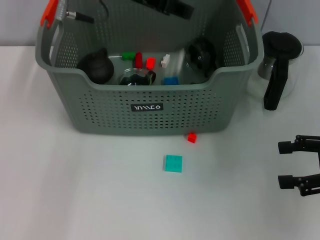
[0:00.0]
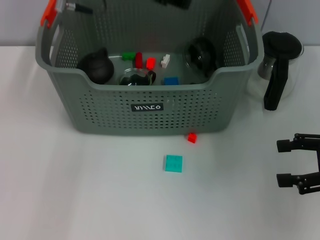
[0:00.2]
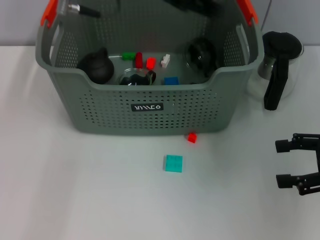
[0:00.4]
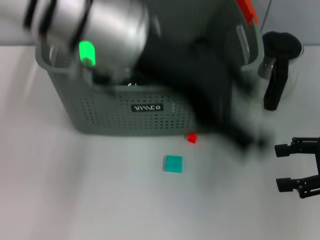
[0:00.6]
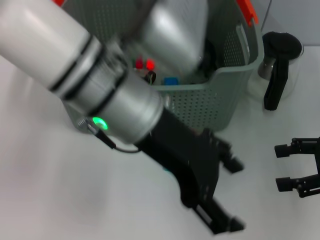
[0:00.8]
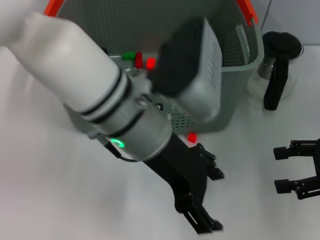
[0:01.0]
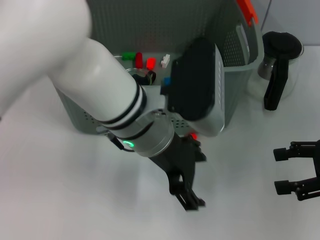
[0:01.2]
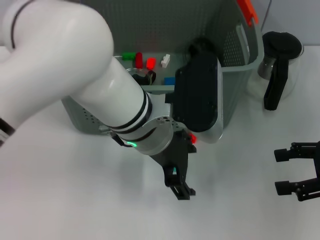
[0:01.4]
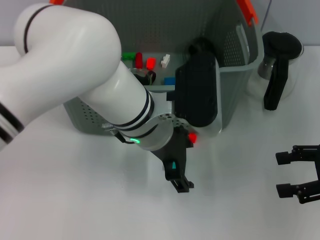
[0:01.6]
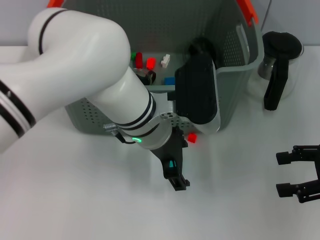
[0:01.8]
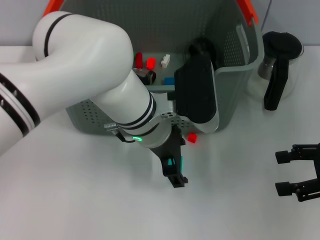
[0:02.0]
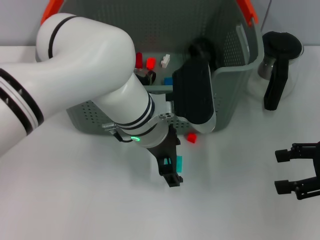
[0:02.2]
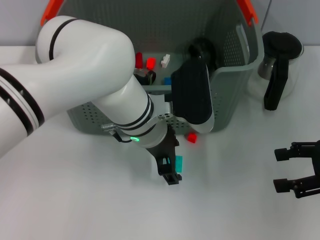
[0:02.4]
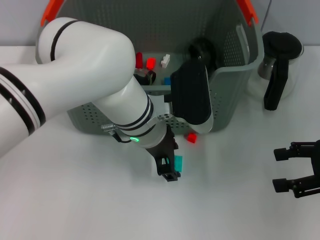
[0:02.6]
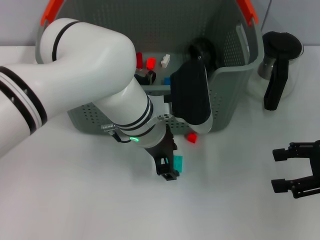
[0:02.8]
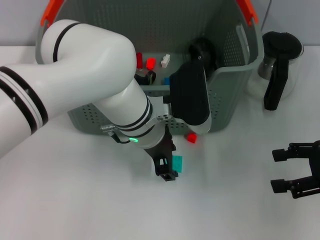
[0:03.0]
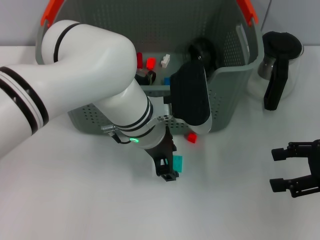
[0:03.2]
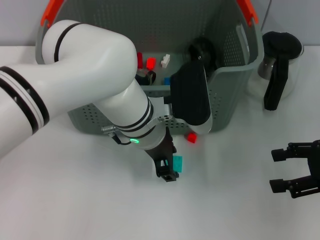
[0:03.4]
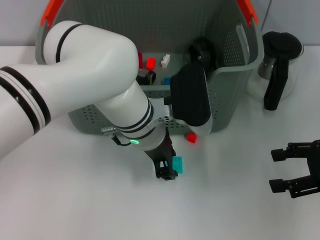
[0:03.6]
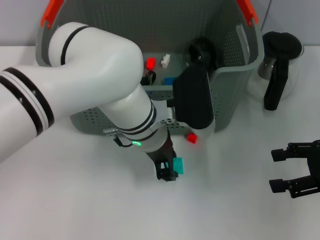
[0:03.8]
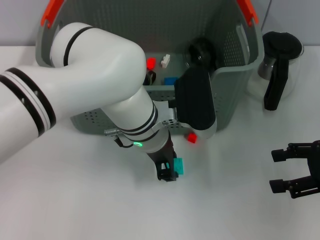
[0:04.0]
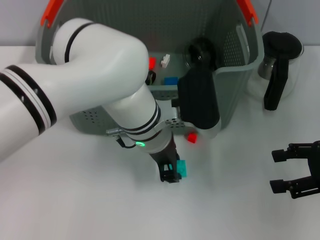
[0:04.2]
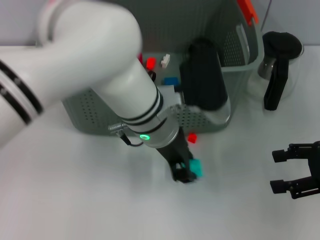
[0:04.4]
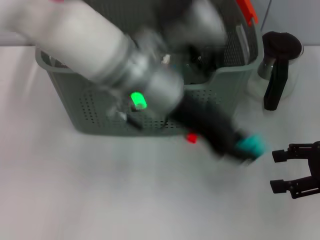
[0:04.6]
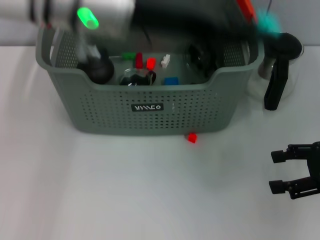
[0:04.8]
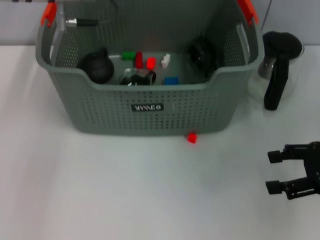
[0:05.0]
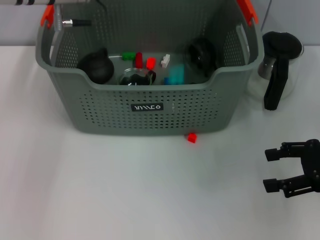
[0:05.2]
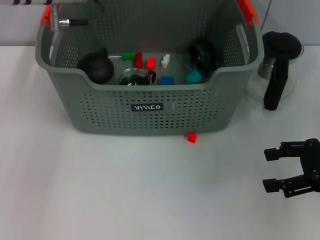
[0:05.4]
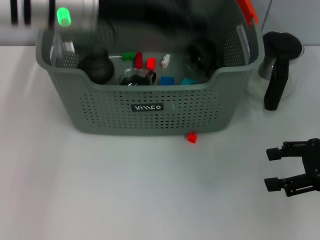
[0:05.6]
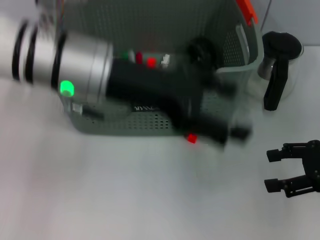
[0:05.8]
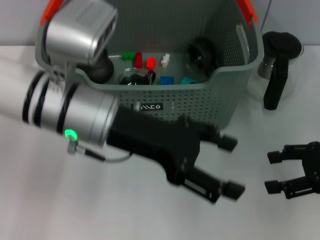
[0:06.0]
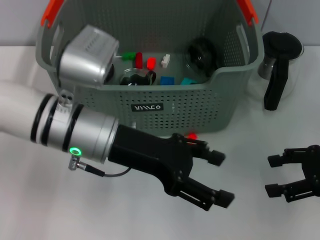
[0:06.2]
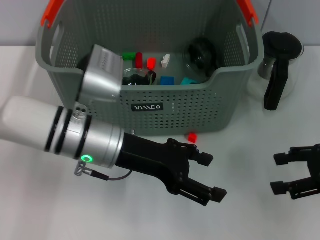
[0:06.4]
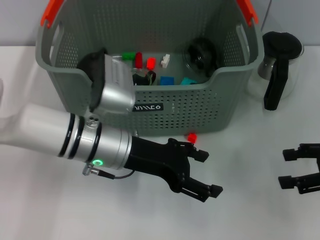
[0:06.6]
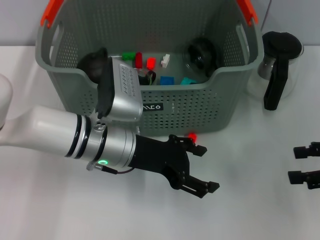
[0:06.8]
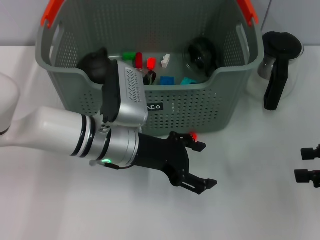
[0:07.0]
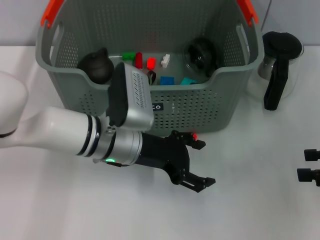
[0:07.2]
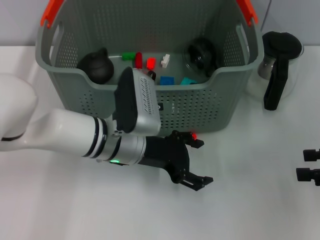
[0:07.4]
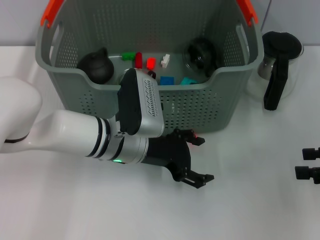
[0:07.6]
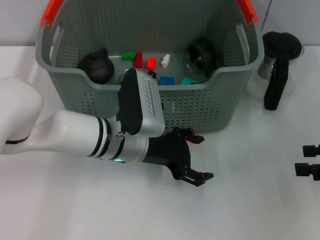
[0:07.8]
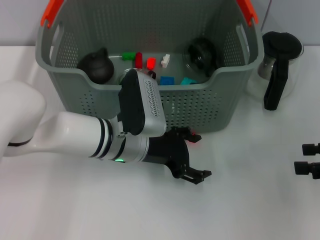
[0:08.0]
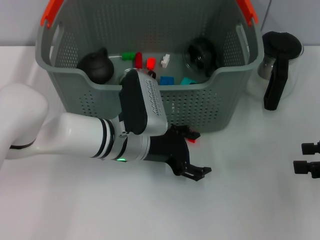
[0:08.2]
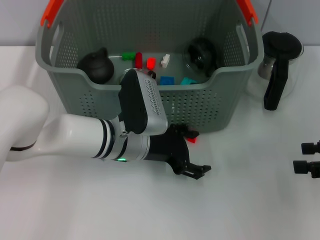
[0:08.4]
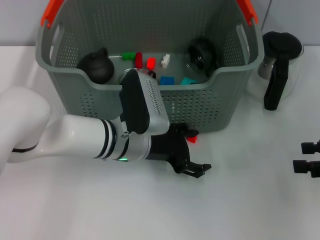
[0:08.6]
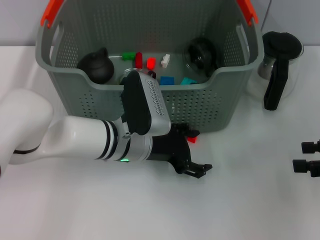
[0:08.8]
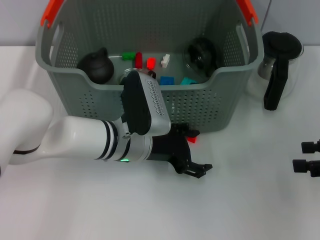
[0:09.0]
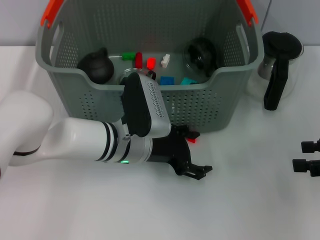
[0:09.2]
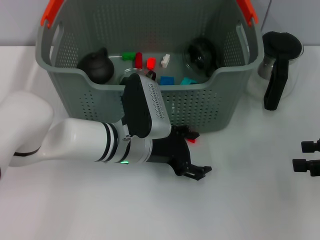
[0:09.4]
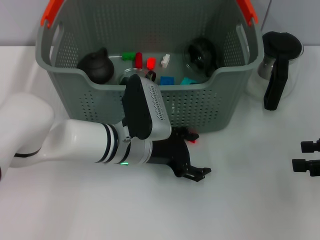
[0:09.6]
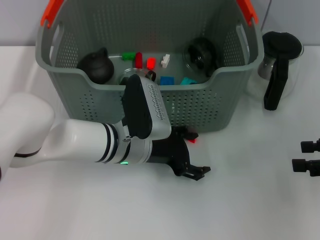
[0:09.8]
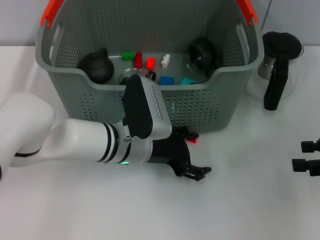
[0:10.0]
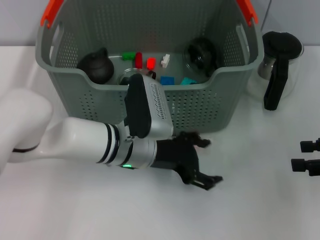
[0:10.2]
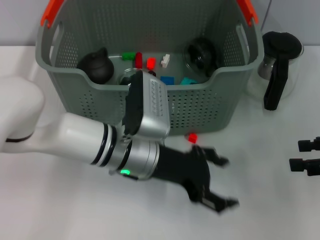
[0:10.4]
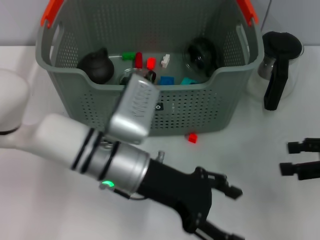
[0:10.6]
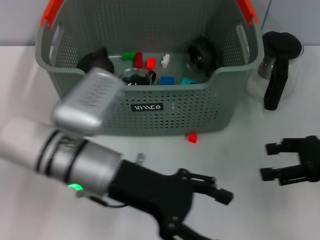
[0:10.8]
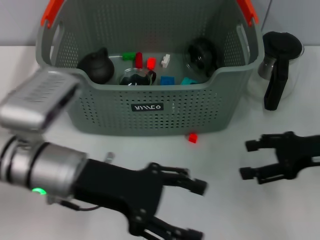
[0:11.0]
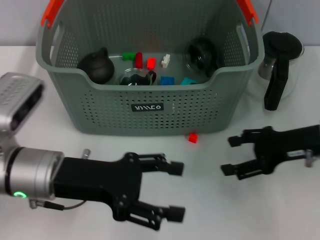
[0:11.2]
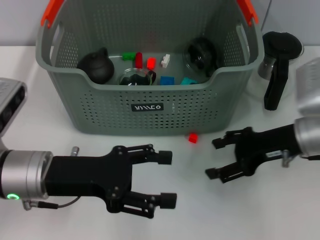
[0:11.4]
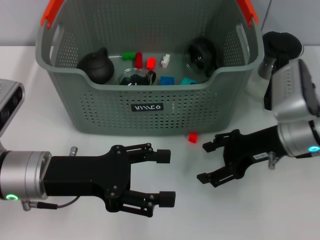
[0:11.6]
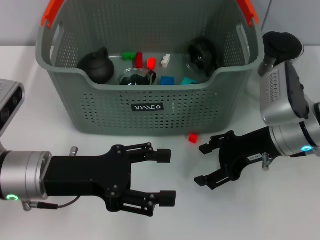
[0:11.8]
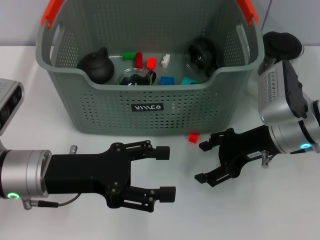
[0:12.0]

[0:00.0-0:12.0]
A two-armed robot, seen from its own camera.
Task of the whole recording: pick up the teacup on the table and place it into the storage bin, pick up the block on the table and place it into the storage bin.
Step, 0:00.2 to 0:03.8: Grasp the light blue block with left gripper.
Step, 0:04.0 to 0:05.2: Place the light blue block in the storage box with left gripper.
0:00.0 to 0:01.6: The left gripper heads downward, to the right and backward, covering about 20 cm, and opens up.
0:01.6 to 0:03.0: The grippers make only small movements.
0:04.4 to 0:06.0: The left gripper moves to the left, approximately 10 cm, and opens up.
0:06.0 to 0:07.6: The left gripper travels downward by some 10 cm.
0:07.6 to 0:10.4: The grippers move only a little.
0:10.4 to 0:12.0: The left gripper travels to the left and backward by some 15 cm. Meanwhile the right gripper is displaced to the left by roughly 15 cm.

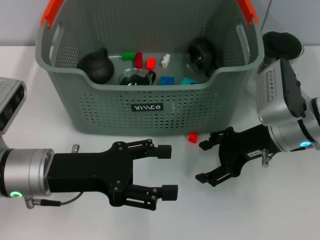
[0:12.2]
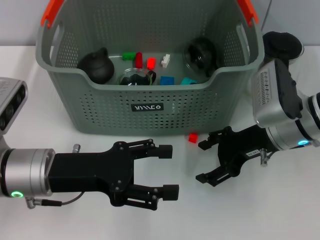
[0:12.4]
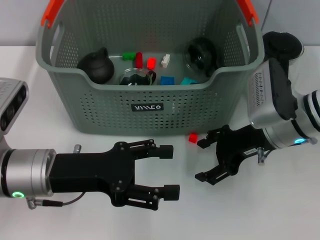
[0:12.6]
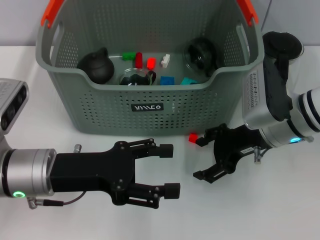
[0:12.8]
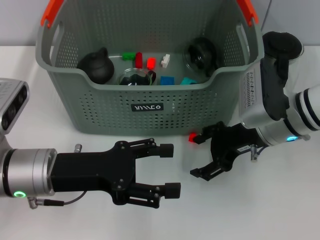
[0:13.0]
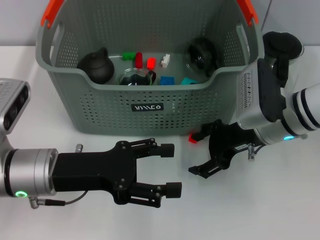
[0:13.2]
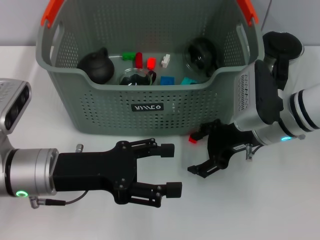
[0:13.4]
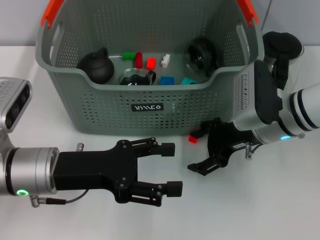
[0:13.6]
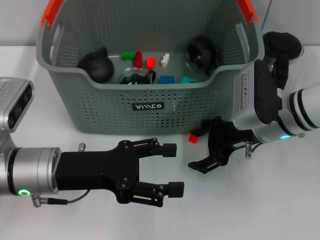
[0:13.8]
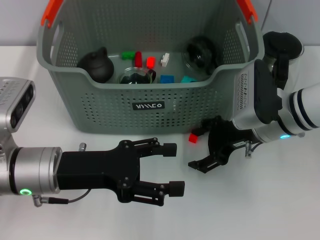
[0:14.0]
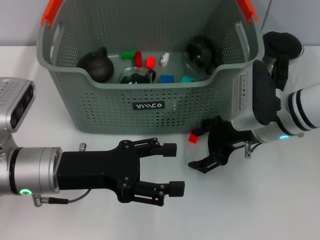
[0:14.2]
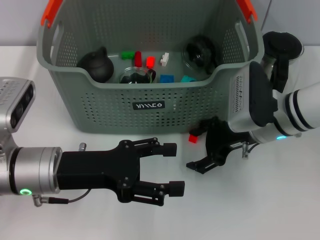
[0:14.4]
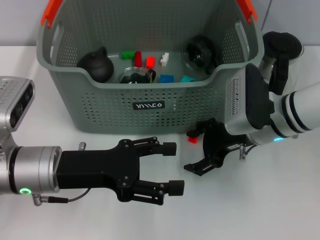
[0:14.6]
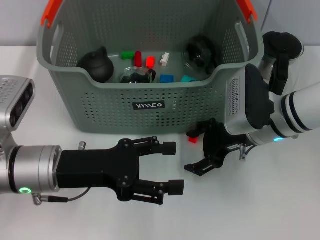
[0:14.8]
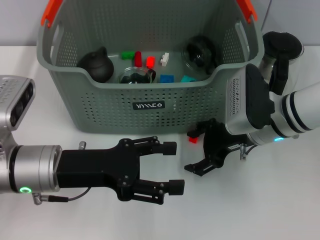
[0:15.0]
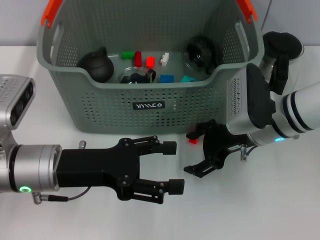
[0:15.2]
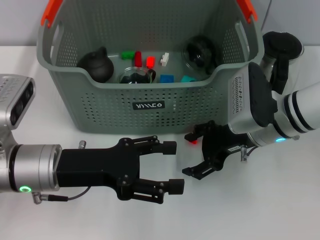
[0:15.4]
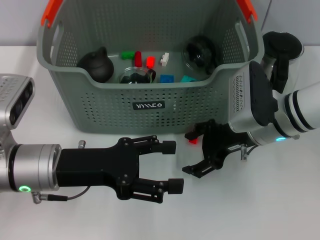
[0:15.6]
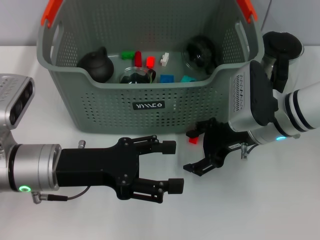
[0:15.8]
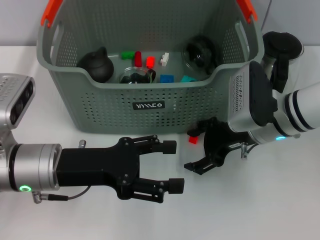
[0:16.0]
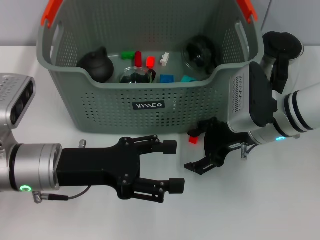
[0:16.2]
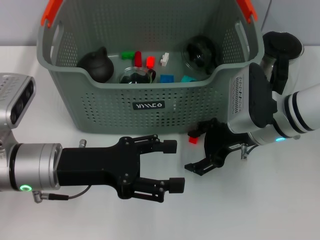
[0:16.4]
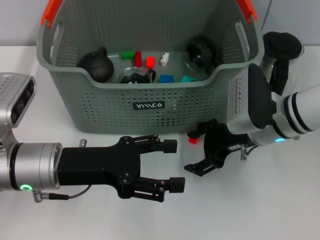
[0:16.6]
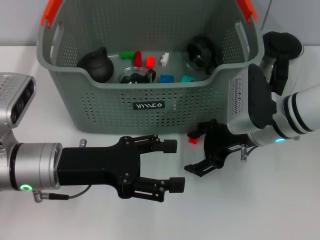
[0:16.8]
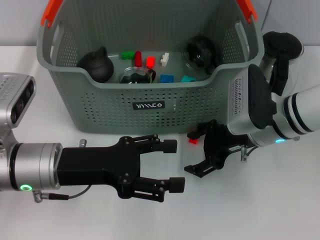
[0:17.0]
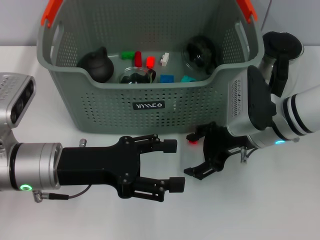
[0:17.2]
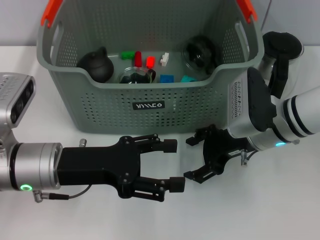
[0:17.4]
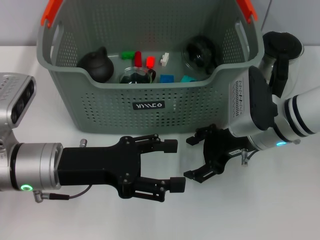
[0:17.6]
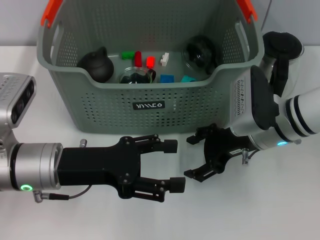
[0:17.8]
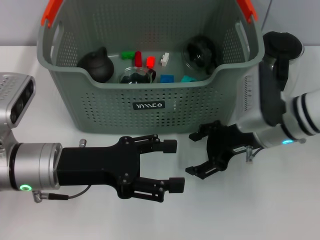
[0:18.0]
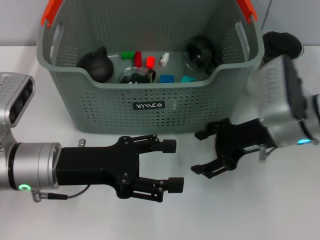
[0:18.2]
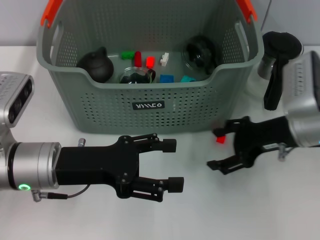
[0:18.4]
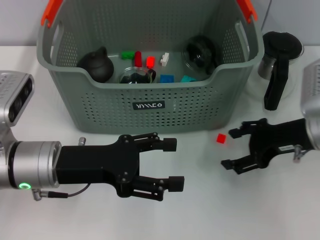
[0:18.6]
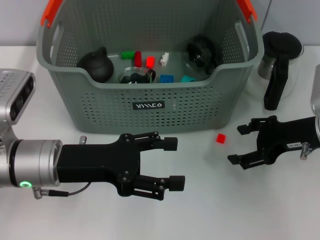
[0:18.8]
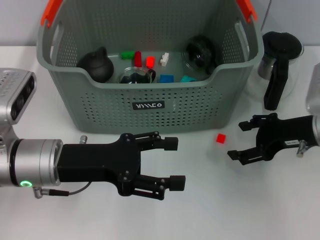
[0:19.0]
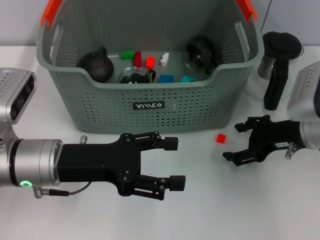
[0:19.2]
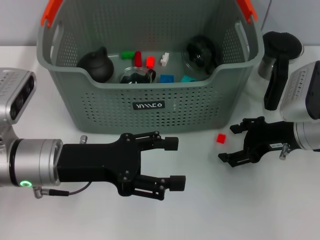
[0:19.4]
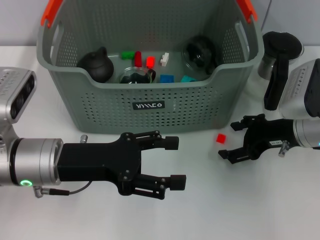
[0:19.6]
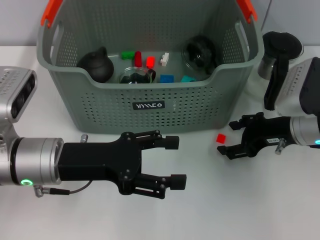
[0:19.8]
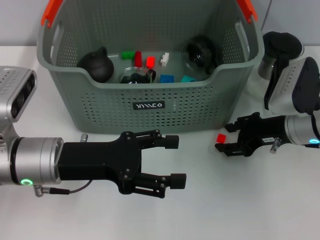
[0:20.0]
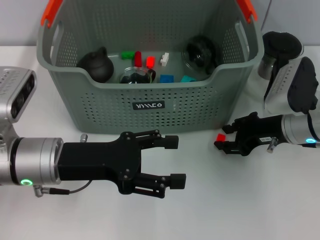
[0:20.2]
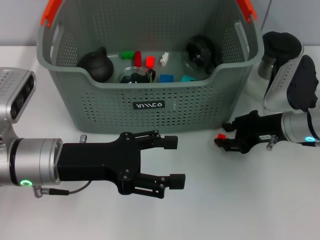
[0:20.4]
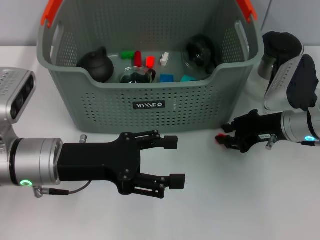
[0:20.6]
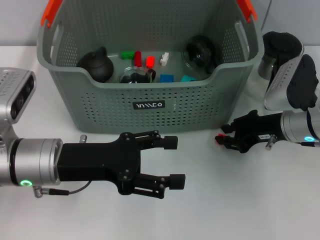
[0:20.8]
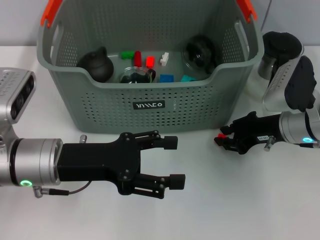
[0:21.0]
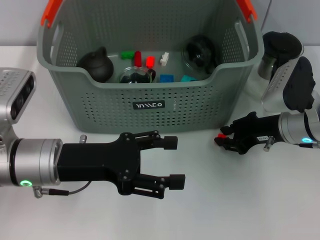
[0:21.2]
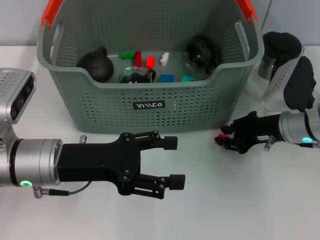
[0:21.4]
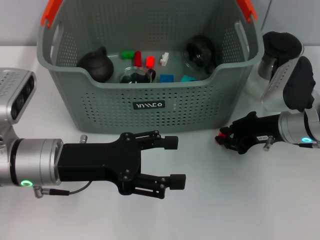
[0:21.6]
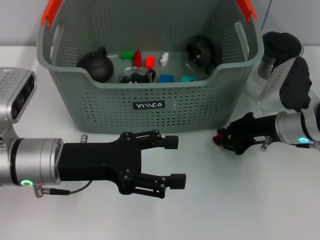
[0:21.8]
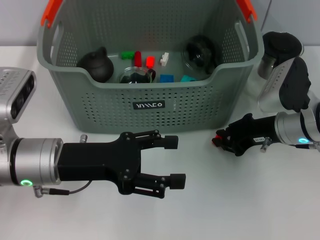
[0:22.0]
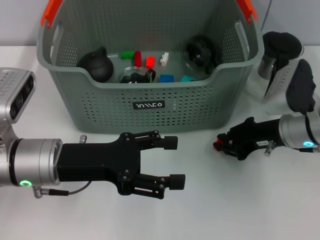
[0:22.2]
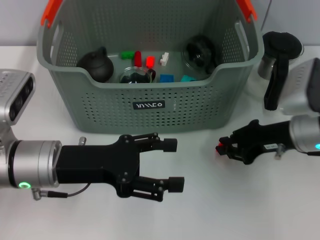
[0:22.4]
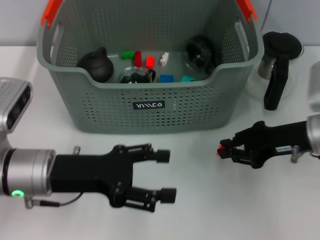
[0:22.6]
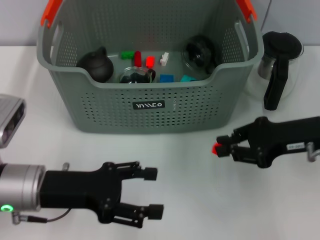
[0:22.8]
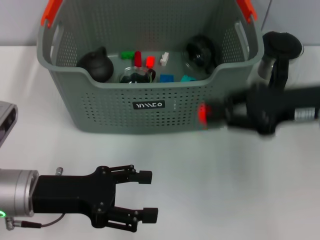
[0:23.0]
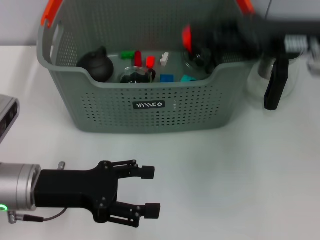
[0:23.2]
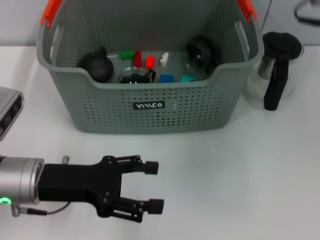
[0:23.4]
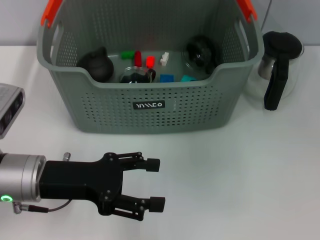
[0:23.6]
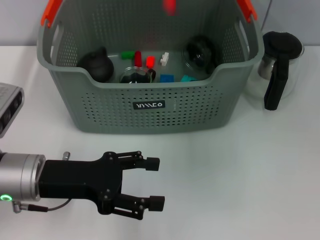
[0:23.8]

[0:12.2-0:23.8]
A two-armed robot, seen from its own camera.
Task of the whole recording: pick up the teacup on the table and place it into the storage bin, pick up the block on the table and place it into the storage bin.
Step, 0:12.2 to 0:21.8: Grasp the orange block with right gripper.
0:12.2 to 0:13.6: The grippers make only small movements.
0:13.6 to 0:18.0: Neither gripper changes place.
0:18.0 to 0:19.4: The right gripper shifts approximately 5 cm to the right.
0:19.4 to 0:21.0: The right gripper closes its fingers.
0:21.0 to 0:22.4: The grippers move only a little.
0:22.4 to 0:23.8: The right gripper heads upward, covering approximately 20 cm.
